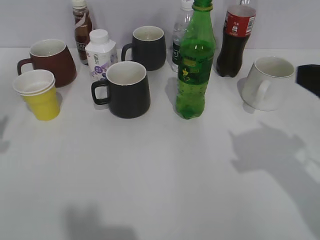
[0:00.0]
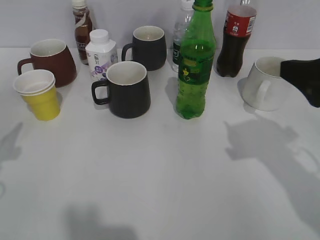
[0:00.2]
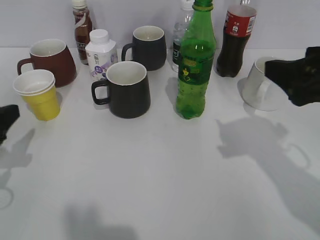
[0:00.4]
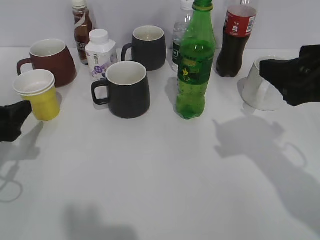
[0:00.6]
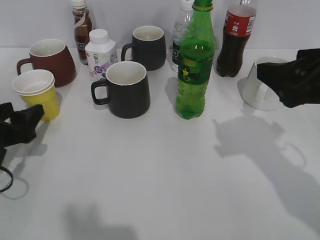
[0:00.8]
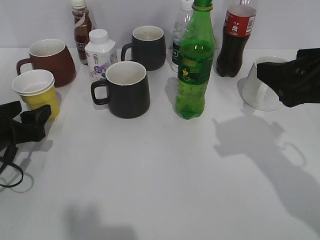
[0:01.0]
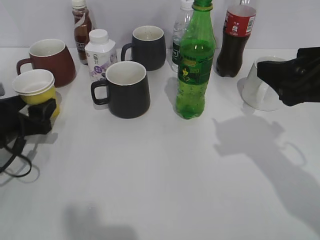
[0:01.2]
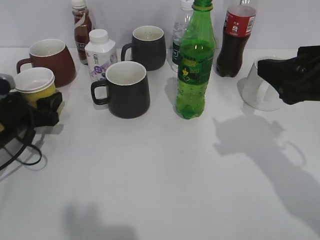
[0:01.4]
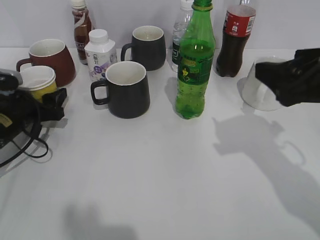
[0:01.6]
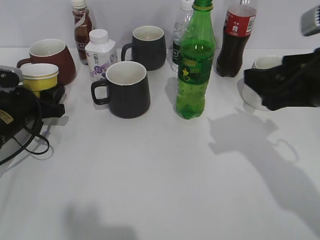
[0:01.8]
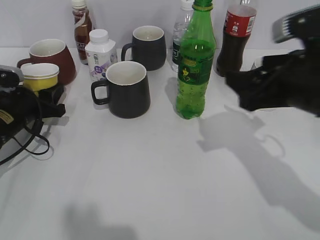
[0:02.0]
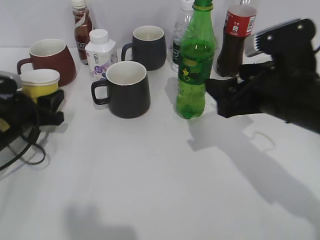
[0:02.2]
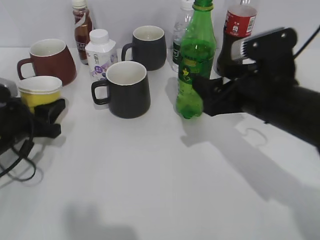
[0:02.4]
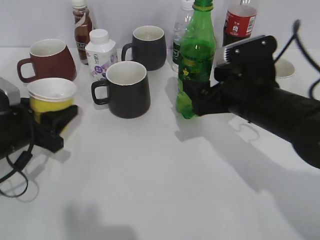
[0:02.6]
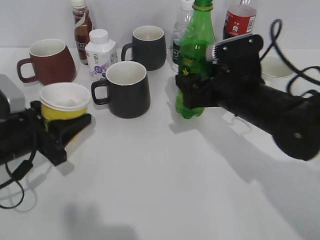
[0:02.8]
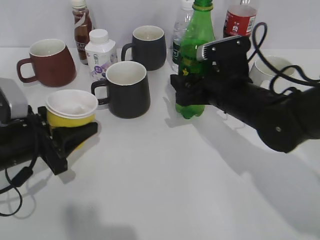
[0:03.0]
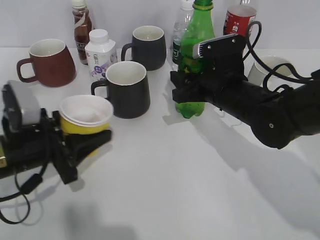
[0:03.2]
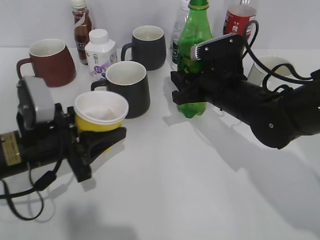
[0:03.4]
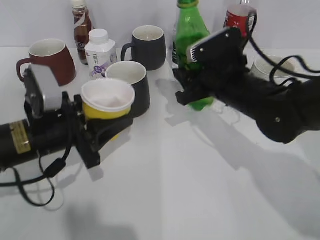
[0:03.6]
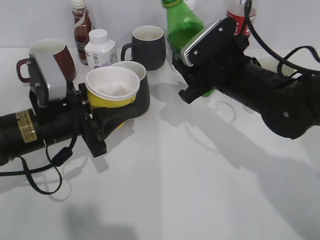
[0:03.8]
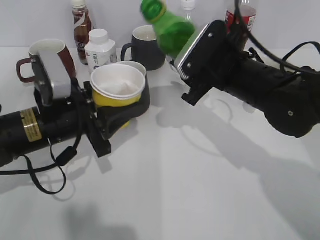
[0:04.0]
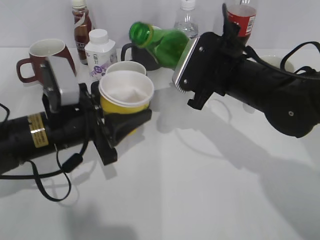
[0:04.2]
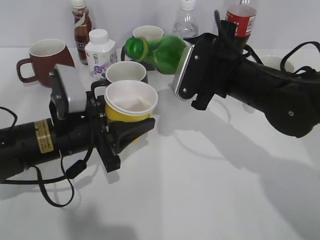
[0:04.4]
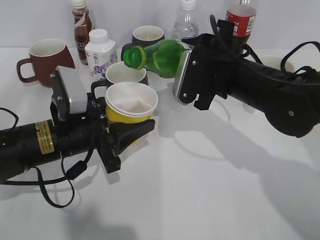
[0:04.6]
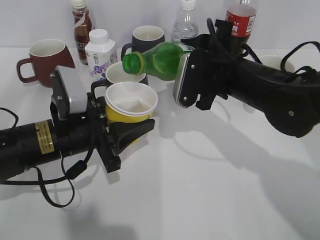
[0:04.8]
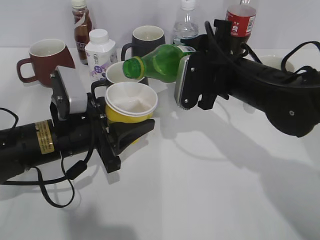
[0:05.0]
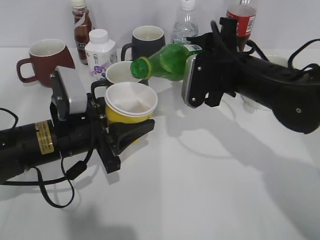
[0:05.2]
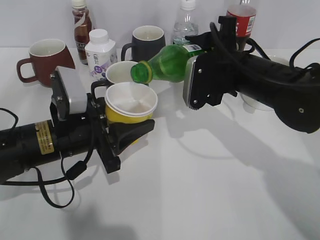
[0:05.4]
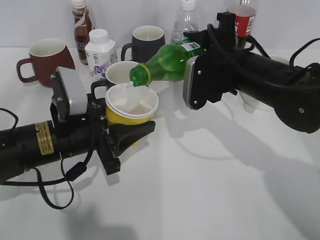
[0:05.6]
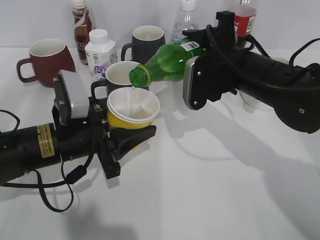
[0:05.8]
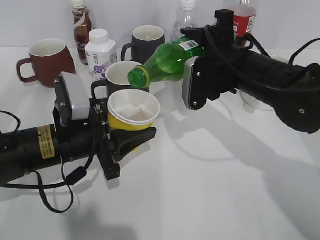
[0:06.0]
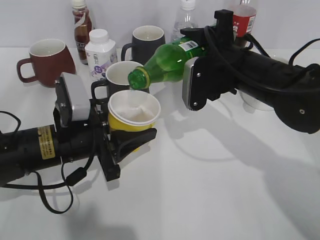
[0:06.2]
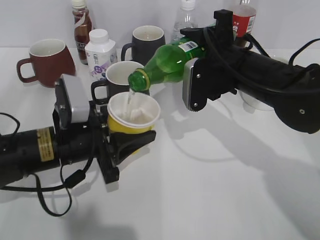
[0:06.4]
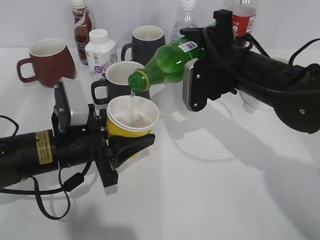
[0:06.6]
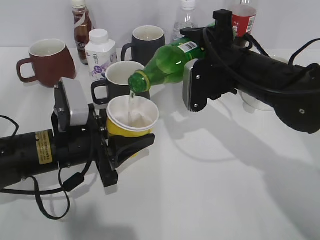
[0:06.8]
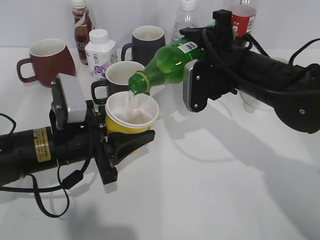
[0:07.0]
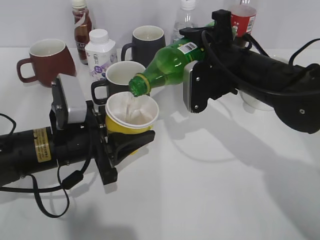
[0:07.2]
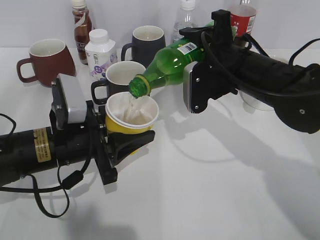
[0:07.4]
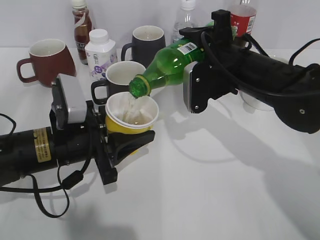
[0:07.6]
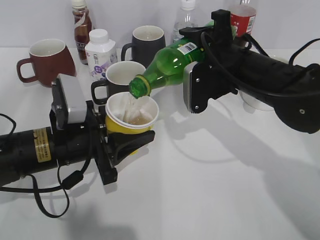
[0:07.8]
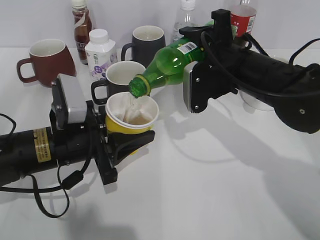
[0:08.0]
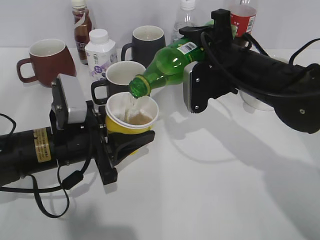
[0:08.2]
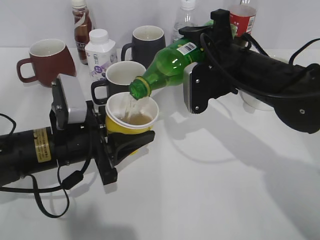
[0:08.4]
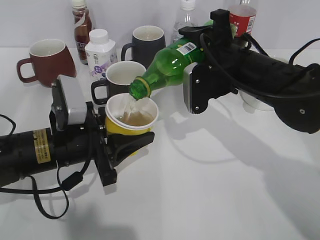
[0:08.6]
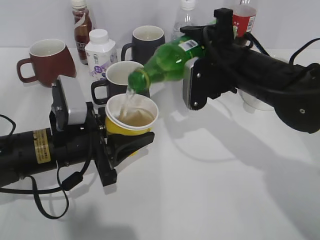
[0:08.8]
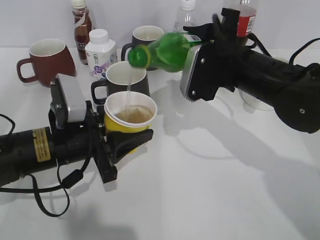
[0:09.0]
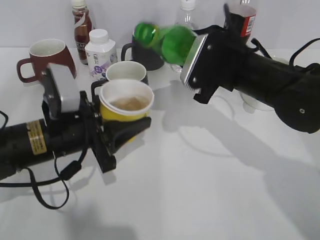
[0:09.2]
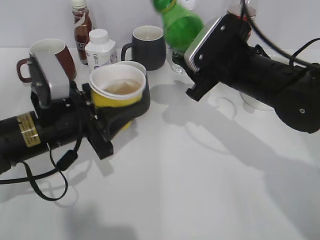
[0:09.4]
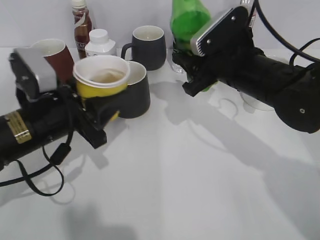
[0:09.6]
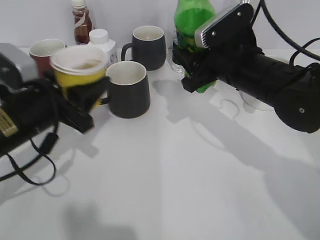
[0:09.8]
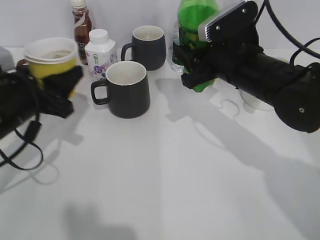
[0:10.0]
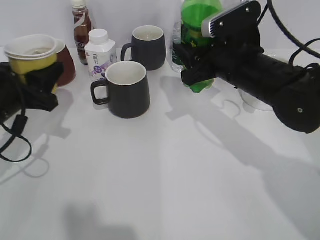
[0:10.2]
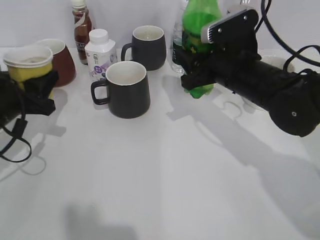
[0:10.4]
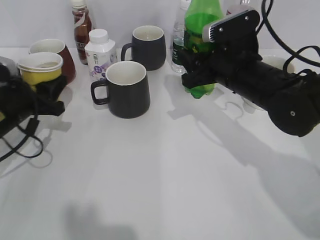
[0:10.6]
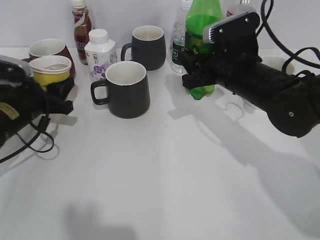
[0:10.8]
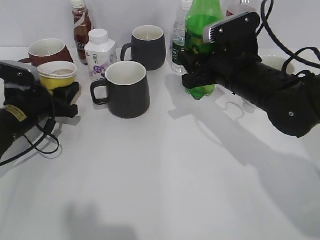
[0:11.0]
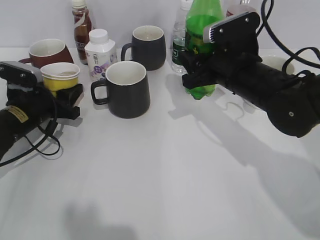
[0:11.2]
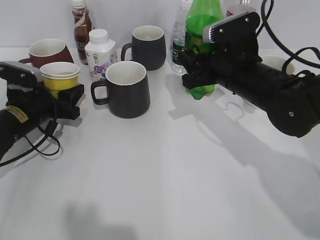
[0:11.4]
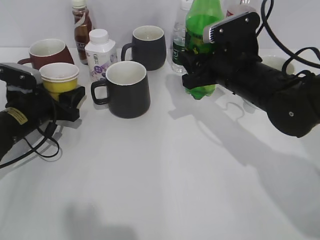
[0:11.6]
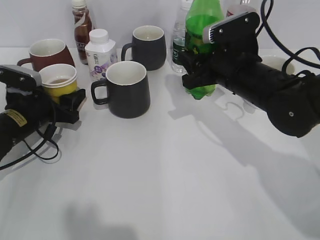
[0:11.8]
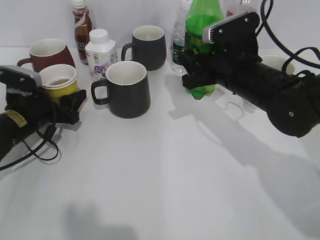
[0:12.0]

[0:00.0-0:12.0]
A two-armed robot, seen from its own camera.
Step, 0:00.0 to 0:01.4: Grasp the yellow paper cup with left gripper.
Step, 0:01.6 to 0:03.2: Grasp the bottle with sprite with right gripper.
Step, 0:03.4 to 0:09.0: Pour the sprite from bottle to cup with right gripper.
Step, 0:09.2 to 0:11.8: Place the yellow paper cup on the table with left gripper.
0:00.0 to 0:01.6: The left gripper heads downward and forward, covering some 20 cm; the right gripper moves roughly 5 cm.
0:01.6 to 0:03.0: The left gripper goes roughly 10 cm backward, and closes up, while the right gripper goes roughly 20 cm downward, forward and to the left.
0:03.0 to 0:04.4: The right gripper closes its fingers; the left gripper moves to the right, approximately 10 cm.
0:06.0 to 0:09.0: The grippers stay close to where they were, moving slightly.
0:09.0 to 0:10.4: The left gripper travels to the left by roughly 10 cm.
0:10.4 to 0:12.0: The left gripper goes approximately 10 cm downward and forward, and opens its fingers.

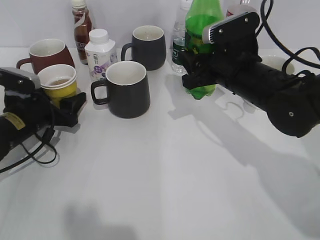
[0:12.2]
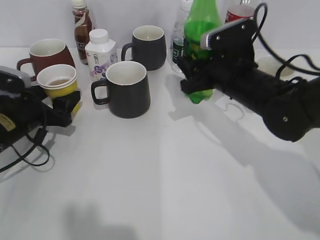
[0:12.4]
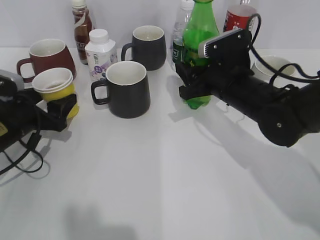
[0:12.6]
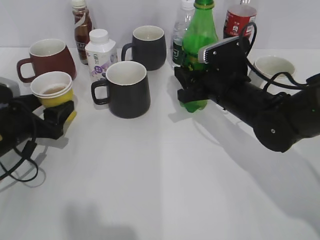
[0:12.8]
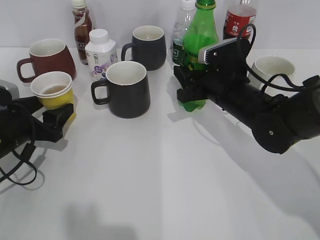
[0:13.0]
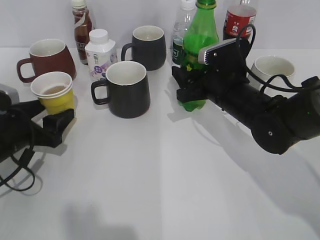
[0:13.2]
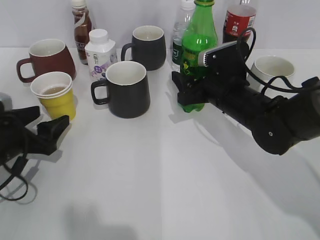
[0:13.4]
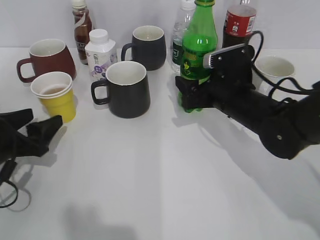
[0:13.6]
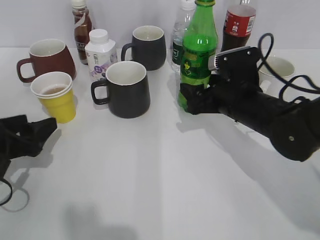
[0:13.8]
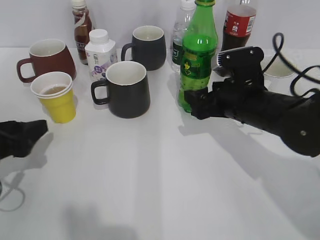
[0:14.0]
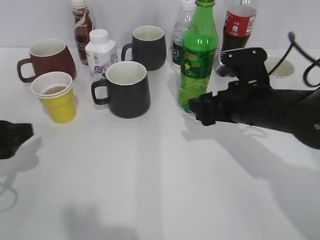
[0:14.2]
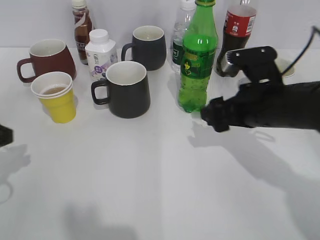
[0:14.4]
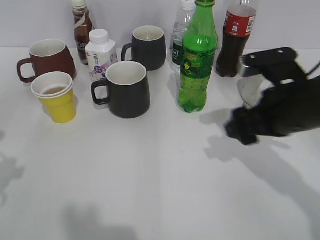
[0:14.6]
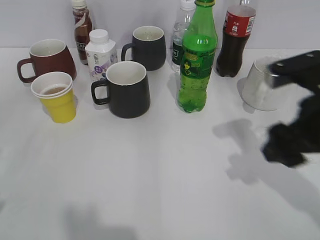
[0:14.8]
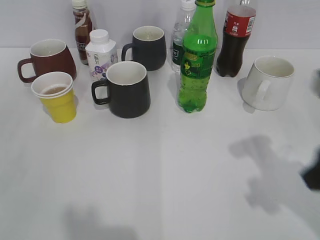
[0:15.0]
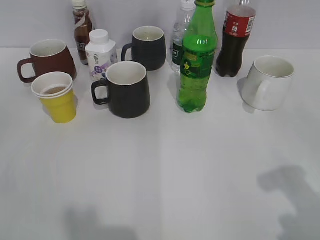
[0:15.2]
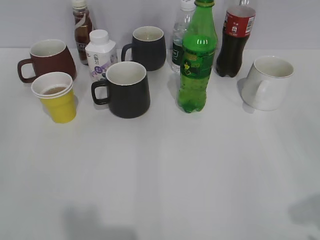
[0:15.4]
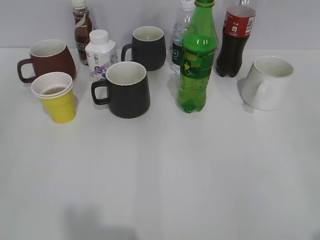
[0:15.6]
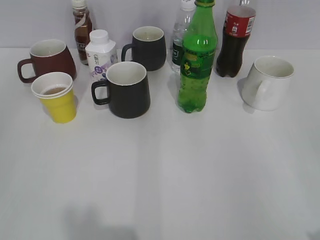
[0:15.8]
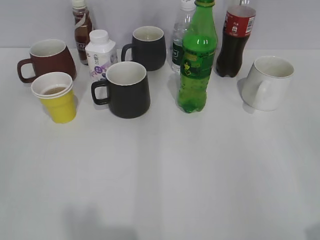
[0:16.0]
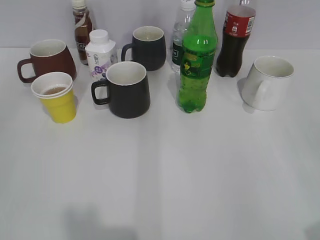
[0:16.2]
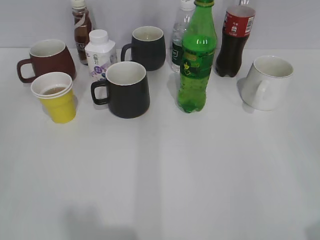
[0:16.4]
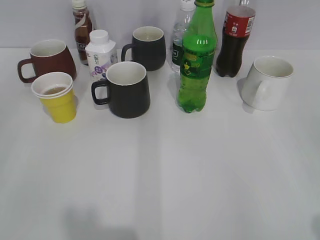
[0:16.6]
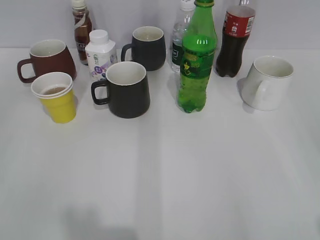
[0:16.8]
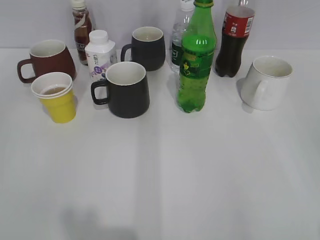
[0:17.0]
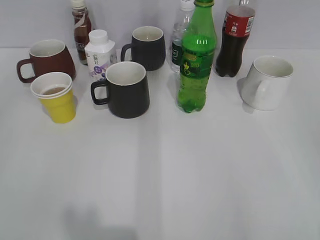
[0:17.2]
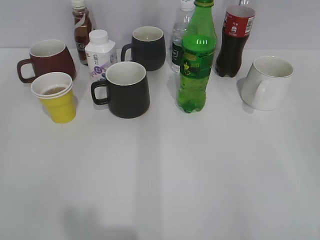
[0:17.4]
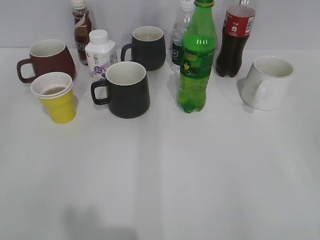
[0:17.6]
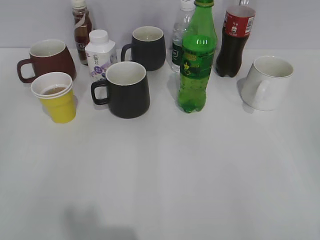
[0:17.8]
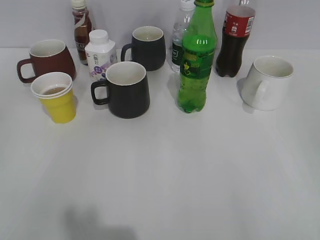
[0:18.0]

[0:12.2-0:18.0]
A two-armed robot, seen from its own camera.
Step, 0:12.2 to 0:13.4: Place the sprite bottle on the table with right gripper.
0:12.2 to 0:13.6: The left gripper moves backward, approximately 10 cm. The right gripper is displaced downward by about 5 cm, and opens its fingers.
0:13.6 to 0:15.0: The left gripper goes about 20 cm upward and backward. Meanwhile the right gripper shifts roughly 20 cm backward, upward and to the right.
0:15.0 to 0:16.6: The right gripper heads backward and to the right, covering about 20 cm.
